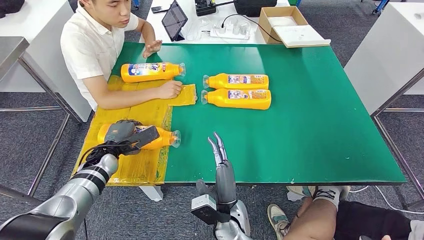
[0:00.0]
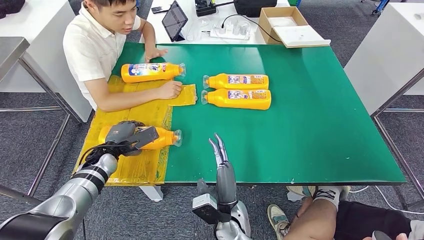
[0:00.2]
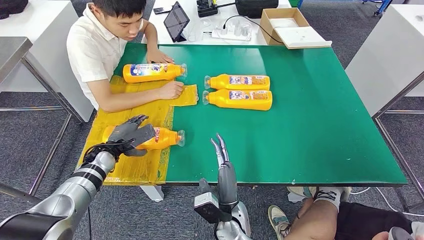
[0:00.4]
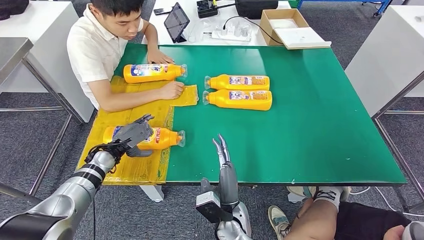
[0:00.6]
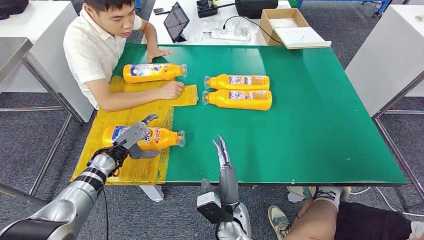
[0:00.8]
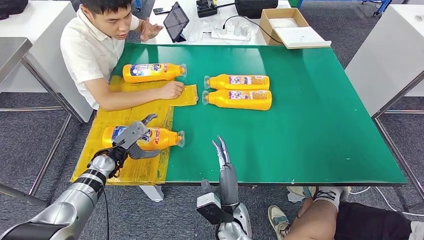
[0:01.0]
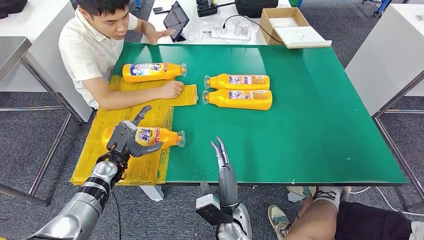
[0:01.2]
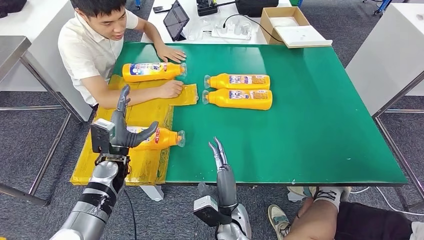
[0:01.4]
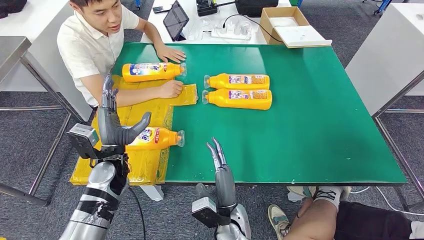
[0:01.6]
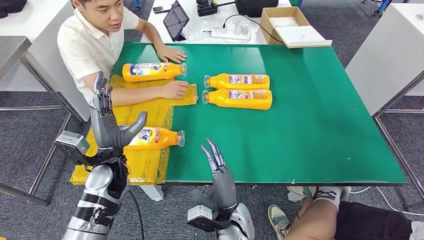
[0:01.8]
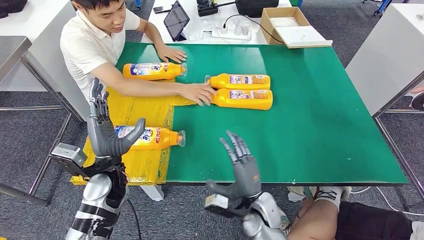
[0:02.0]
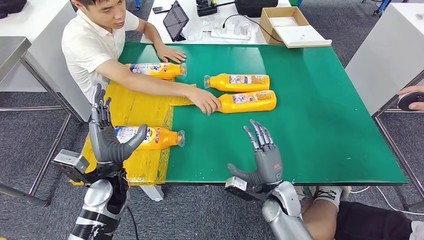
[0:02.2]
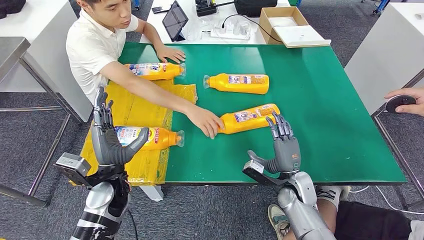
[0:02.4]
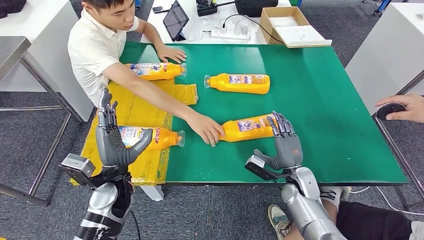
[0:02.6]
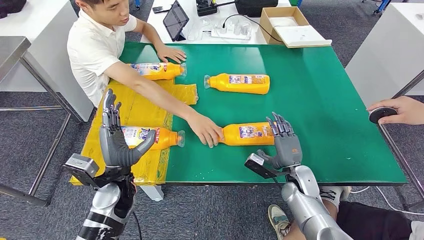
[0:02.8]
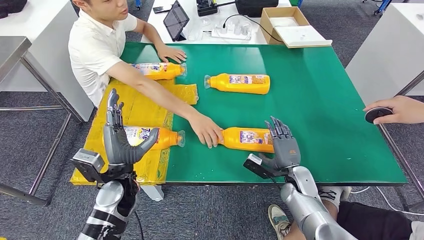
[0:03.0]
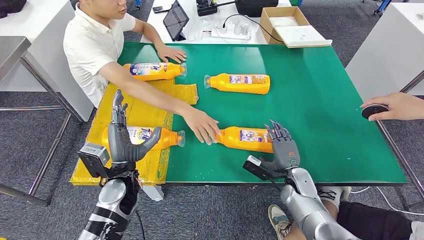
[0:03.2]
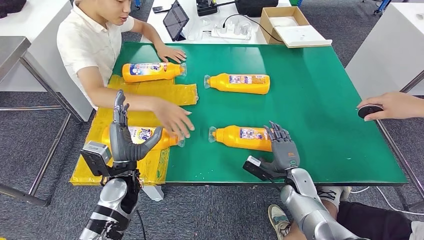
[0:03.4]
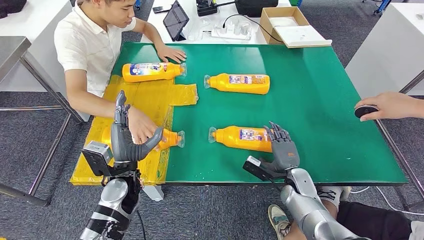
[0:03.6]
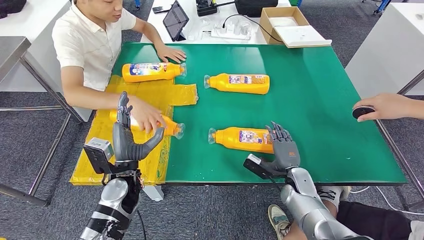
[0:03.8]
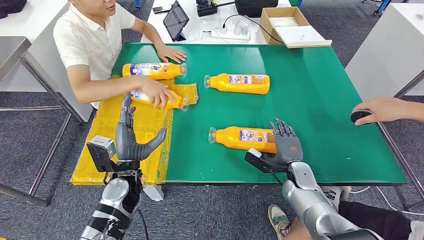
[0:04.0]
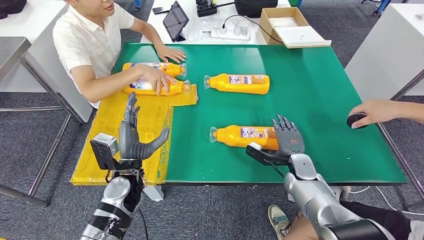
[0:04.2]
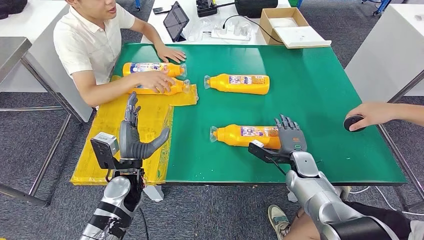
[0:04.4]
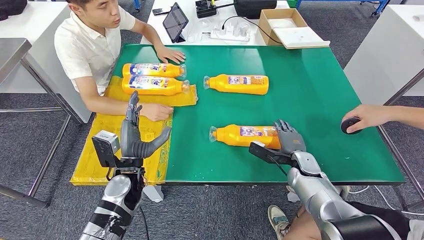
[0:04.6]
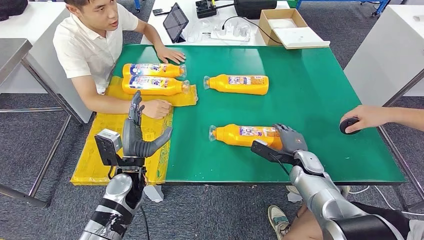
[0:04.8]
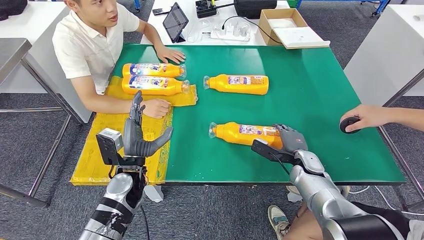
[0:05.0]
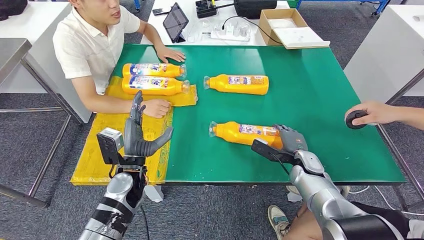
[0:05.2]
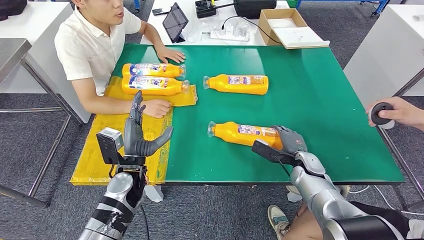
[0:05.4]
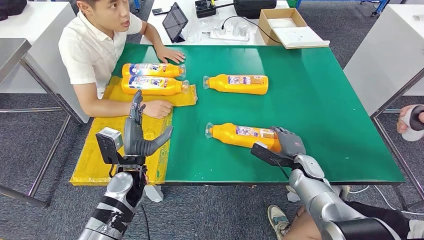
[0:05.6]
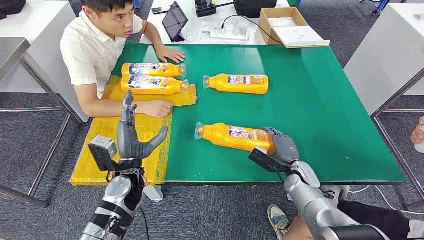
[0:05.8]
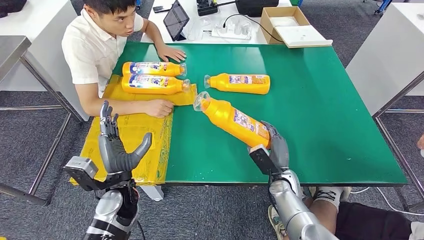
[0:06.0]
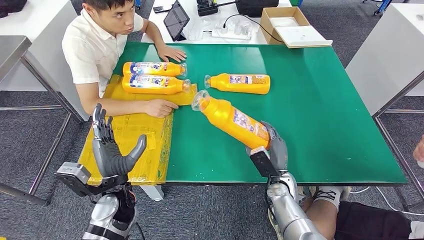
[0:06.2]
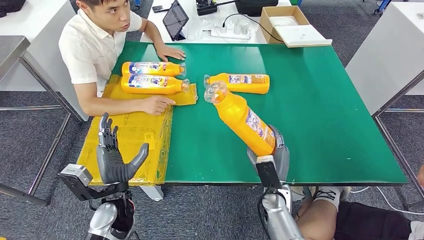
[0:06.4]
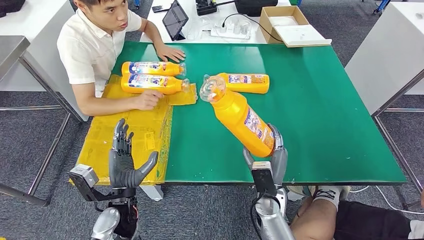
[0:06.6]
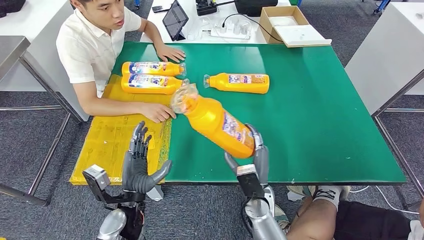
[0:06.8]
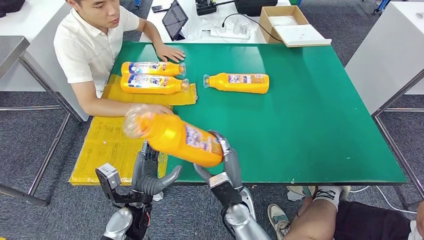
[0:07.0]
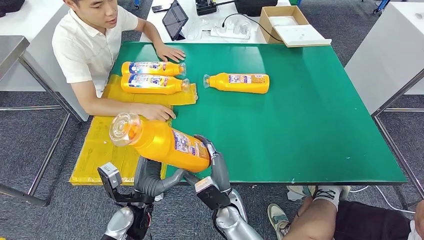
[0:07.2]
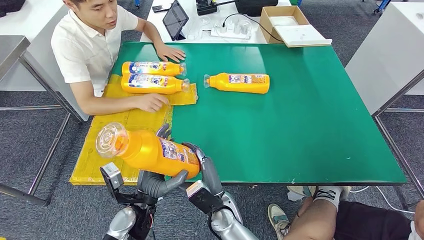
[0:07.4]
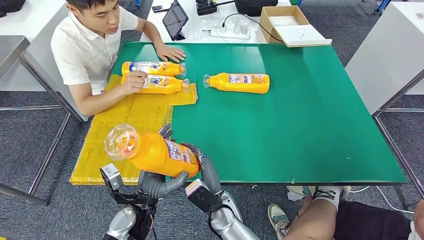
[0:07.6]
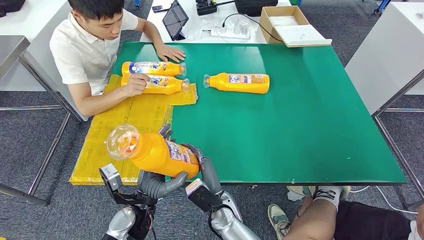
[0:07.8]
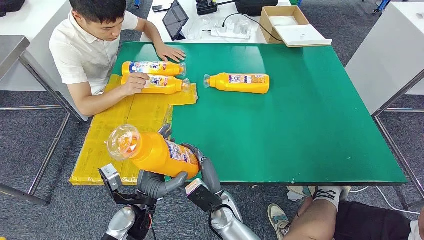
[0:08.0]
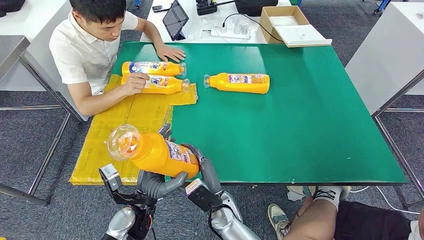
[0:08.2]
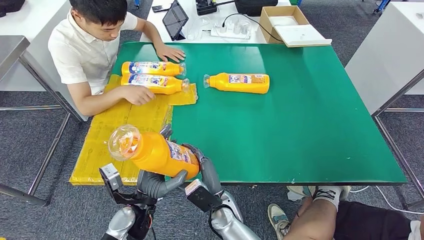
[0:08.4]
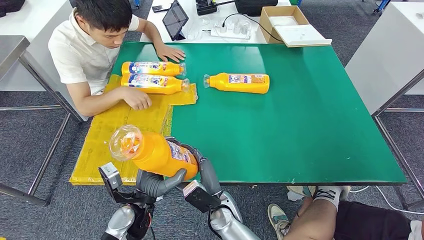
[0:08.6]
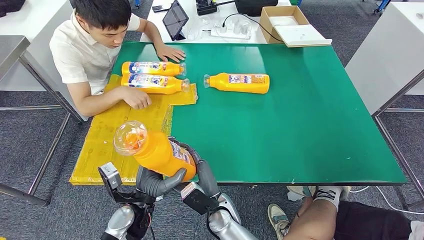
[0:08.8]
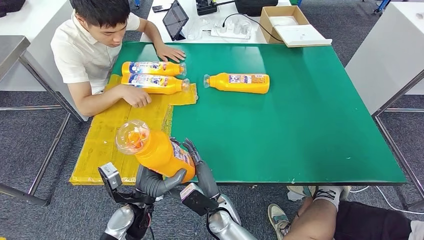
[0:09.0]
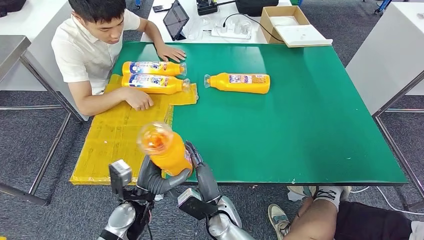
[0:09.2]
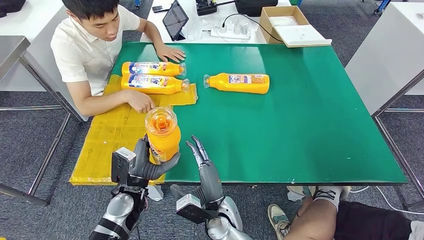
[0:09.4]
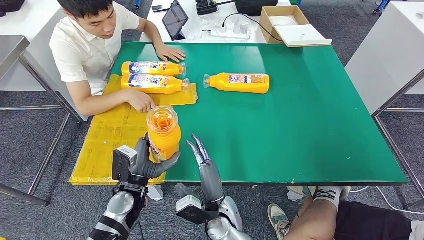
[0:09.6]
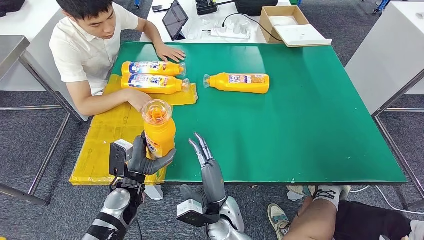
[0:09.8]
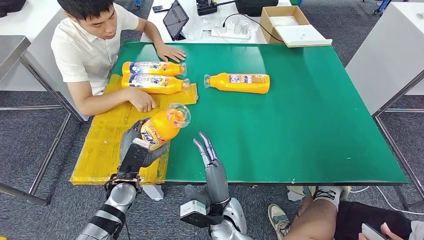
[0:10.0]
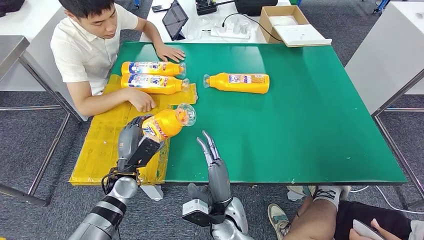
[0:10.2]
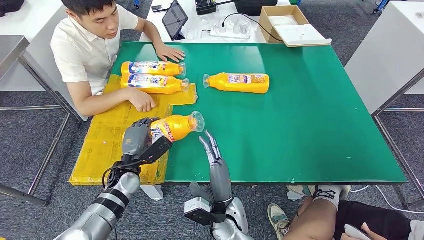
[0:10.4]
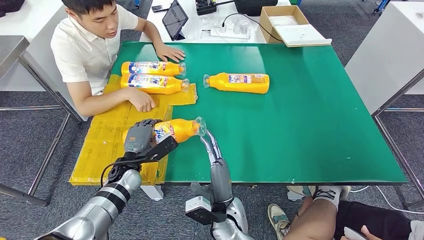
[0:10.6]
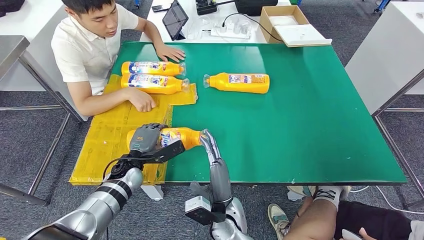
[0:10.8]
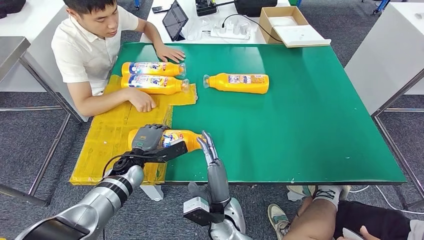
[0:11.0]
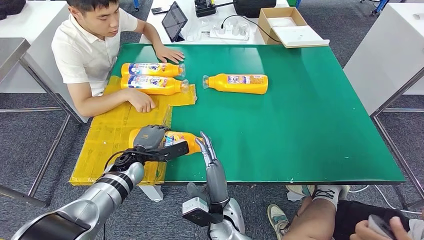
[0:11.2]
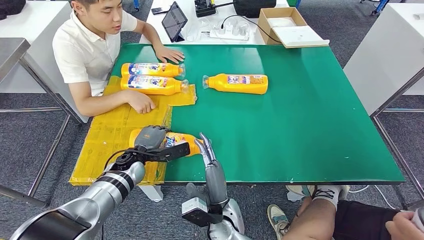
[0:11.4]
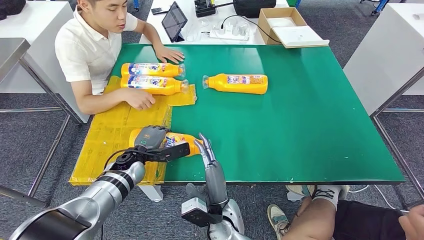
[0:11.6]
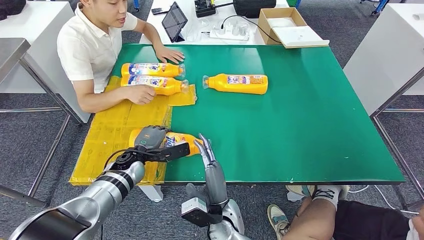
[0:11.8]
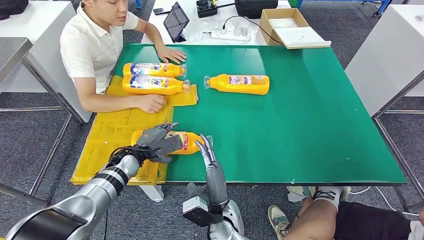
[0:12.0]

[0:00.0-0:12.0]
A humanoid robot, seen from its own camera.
Step, 0:00.0 to 0:02.0: Flip the fast-moving consumer goods bottle to the front side.
Step, 0:02.2 to 0:07.6: Pick up the fast-moving consumer goods bottle from the table.
0:00.0 to 0:01.6: The left hand travels upward, to the right and backward by about 10 cm.
0:07.6 to 0:09.0: There are only small adjustments of the hands.
0:09.0 to 0:10.4: The left hand goes some 10 cm forward and to the left.

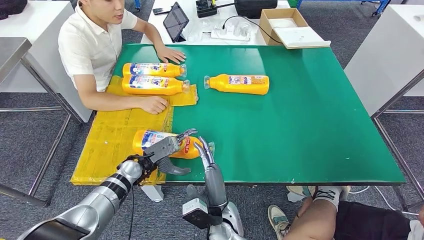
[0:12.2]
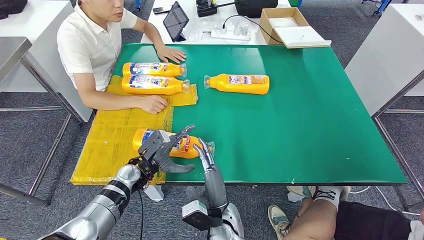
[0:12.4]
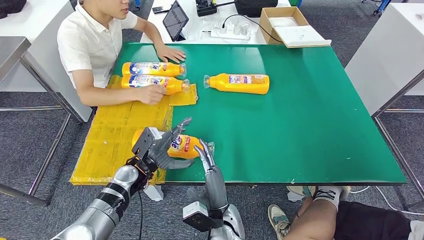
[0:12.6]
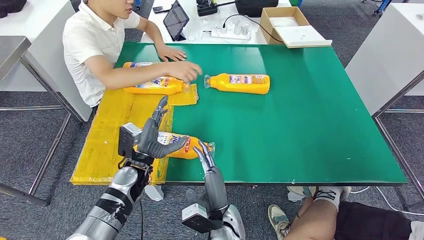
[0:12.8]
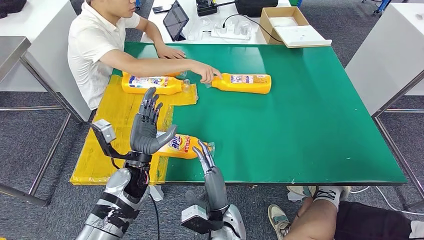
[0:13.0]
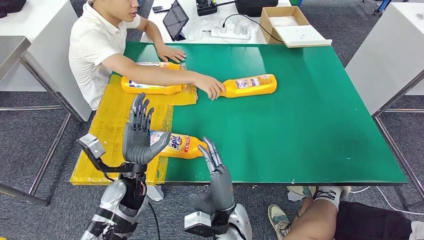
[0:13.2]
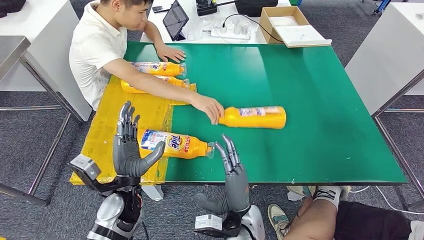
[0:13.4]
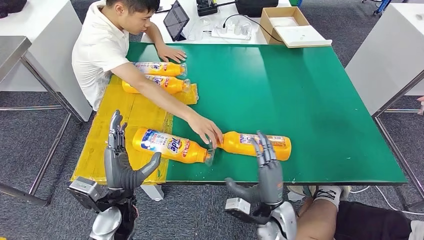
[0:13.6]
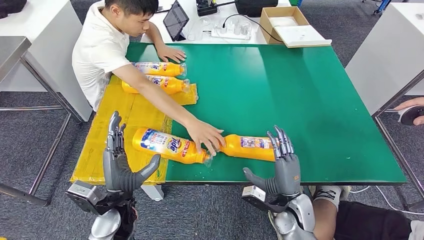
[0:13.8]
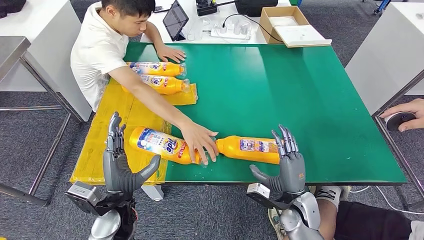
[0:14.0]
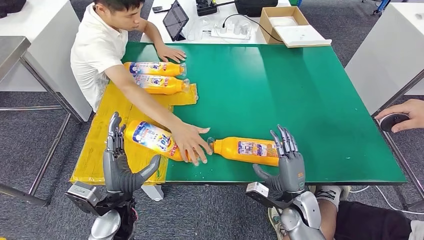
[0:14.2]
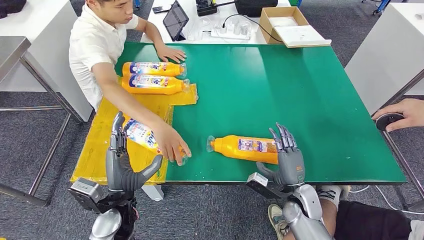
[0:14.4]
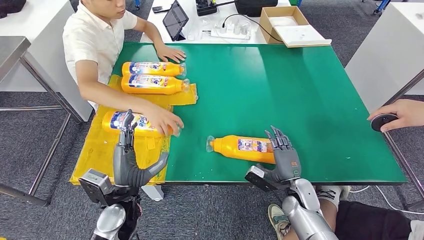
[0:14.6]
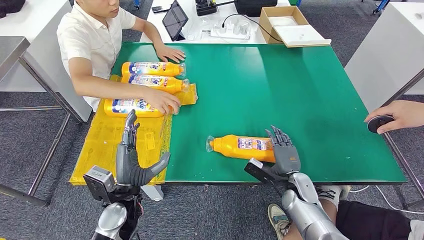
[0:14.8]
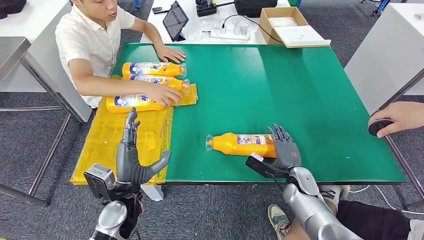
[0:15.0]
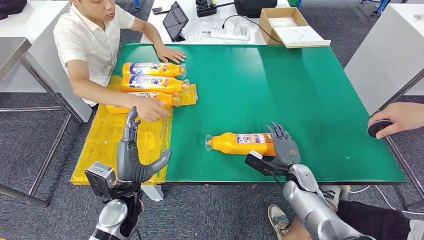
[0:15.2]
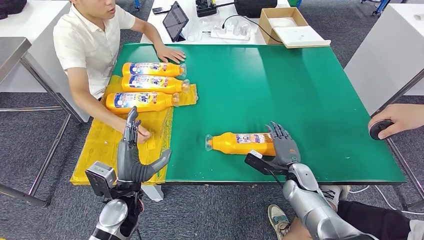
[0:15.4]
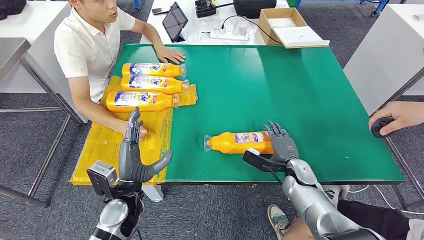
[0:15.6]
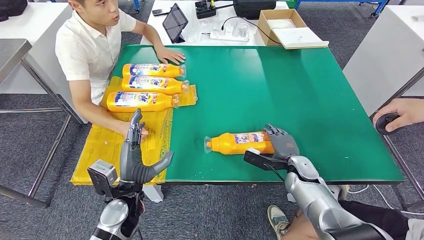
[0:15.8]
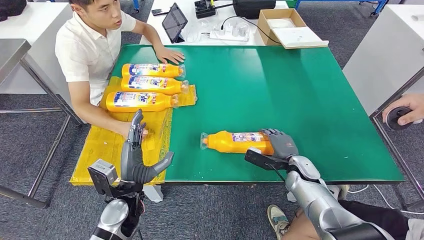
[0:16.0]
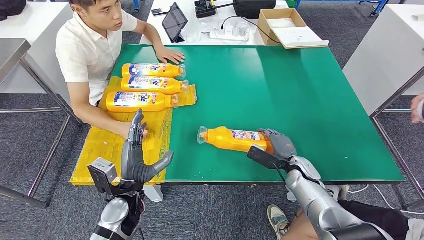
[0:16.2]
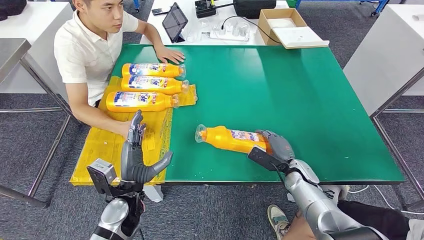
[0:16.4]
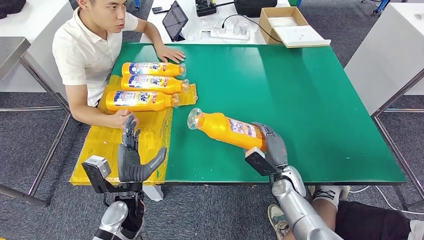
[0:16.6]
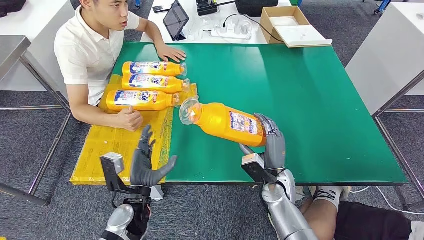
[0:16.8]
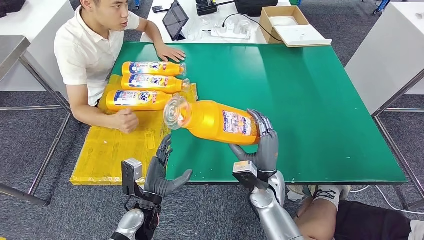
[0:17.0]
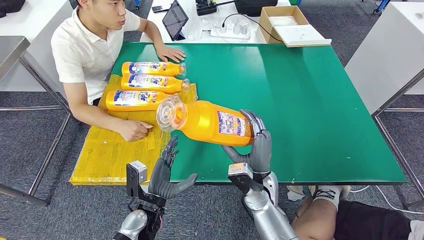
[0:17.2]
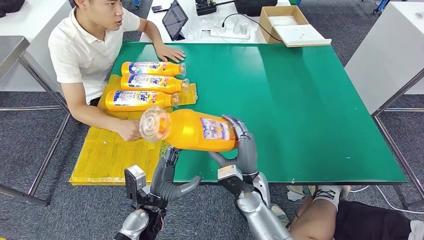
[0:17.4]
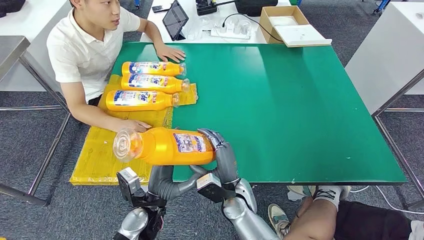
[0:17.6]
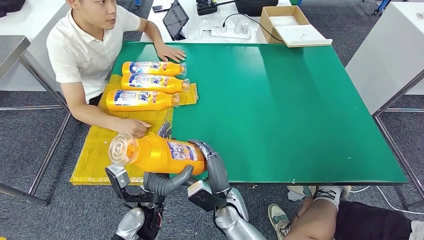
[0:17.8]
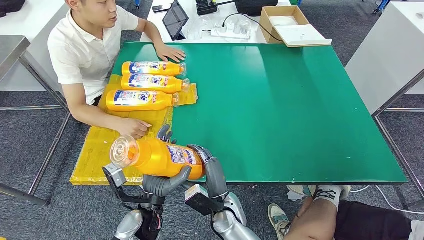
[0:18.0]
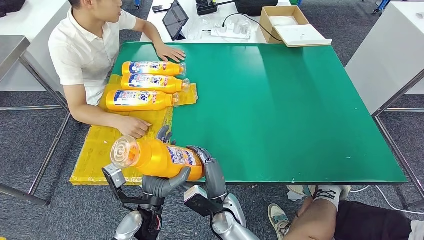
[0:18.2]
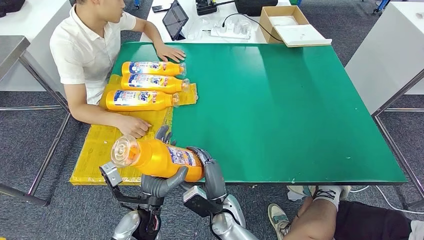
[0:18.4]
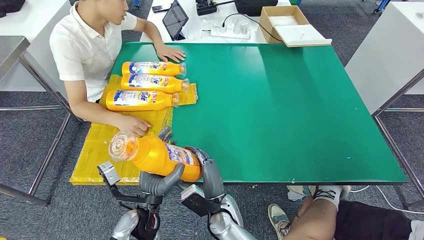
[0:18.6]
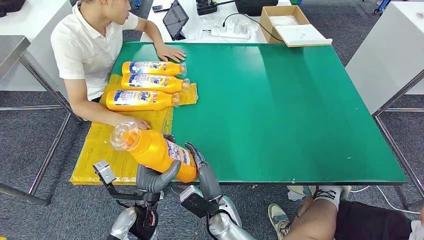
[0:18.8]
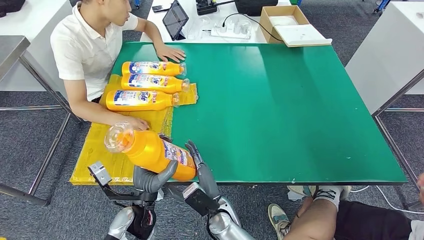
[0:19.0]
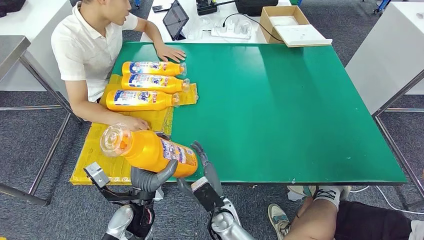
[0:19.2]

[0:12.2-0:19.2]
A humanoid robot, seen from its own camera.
Step, 0:12.6 to 0:17.2: Pick up the fast-moving consumer goods bottle from the table.
0:17.8 to 0:19.2: The hands stay close to where they were, moving slightly.
